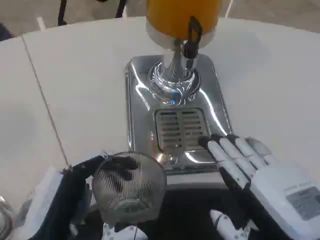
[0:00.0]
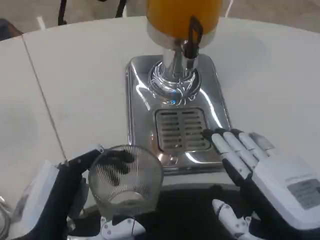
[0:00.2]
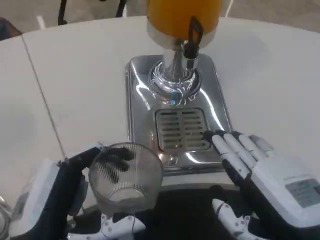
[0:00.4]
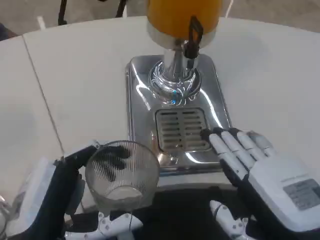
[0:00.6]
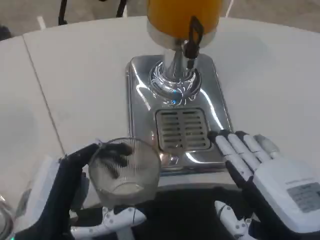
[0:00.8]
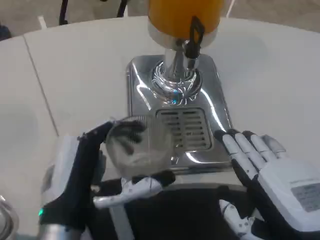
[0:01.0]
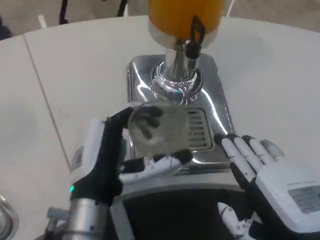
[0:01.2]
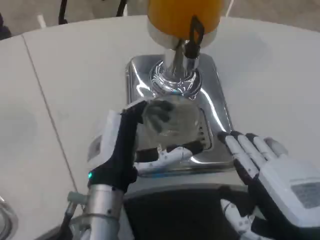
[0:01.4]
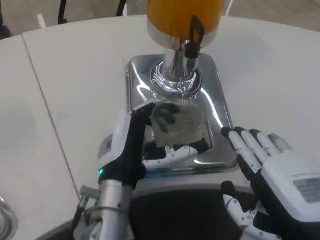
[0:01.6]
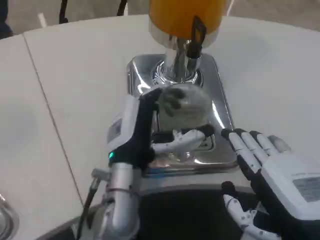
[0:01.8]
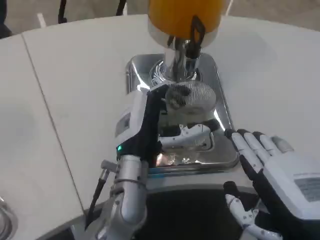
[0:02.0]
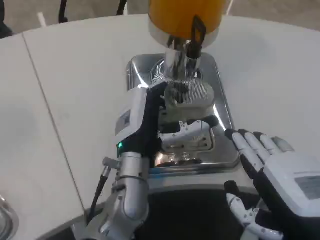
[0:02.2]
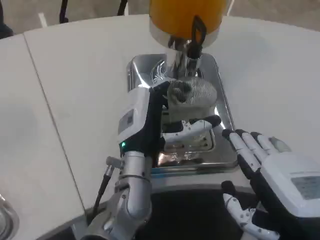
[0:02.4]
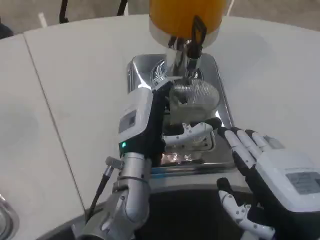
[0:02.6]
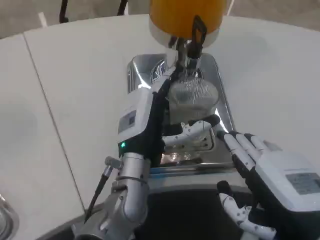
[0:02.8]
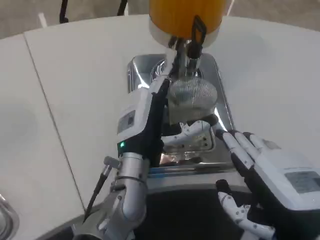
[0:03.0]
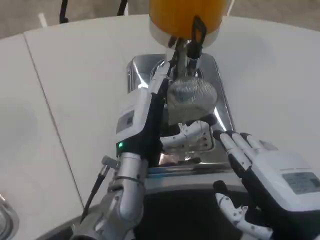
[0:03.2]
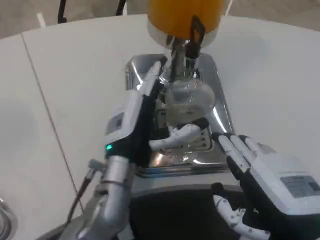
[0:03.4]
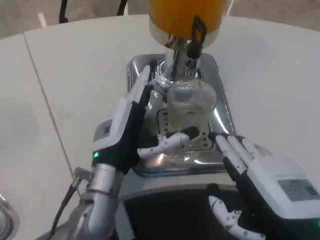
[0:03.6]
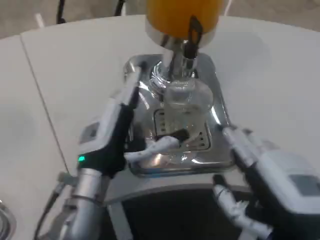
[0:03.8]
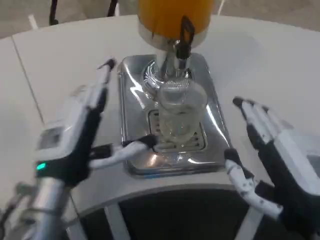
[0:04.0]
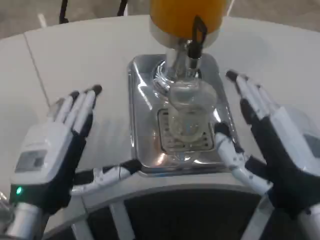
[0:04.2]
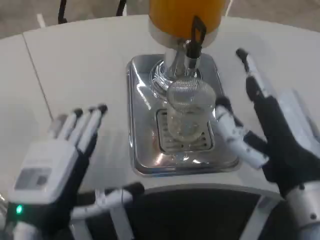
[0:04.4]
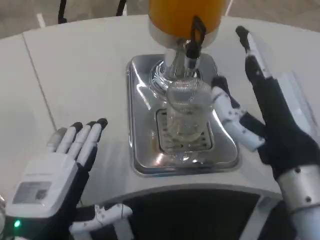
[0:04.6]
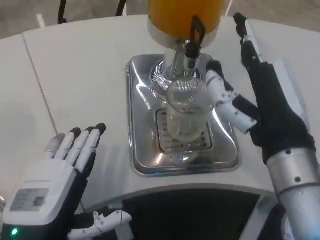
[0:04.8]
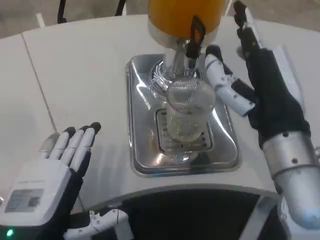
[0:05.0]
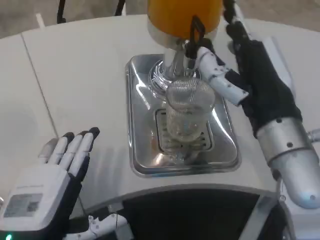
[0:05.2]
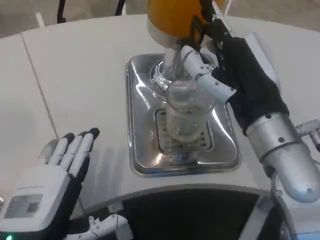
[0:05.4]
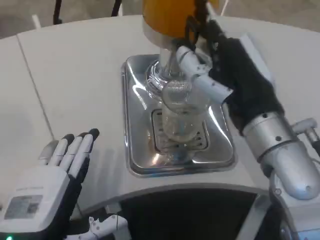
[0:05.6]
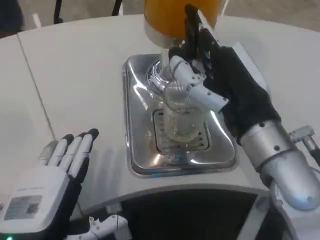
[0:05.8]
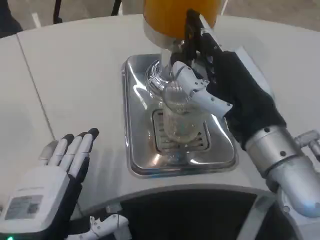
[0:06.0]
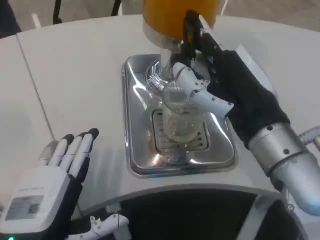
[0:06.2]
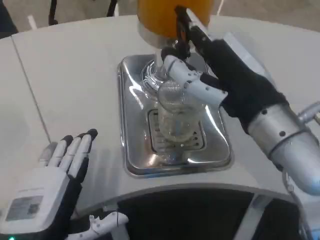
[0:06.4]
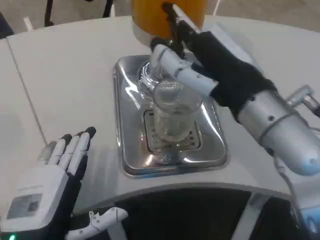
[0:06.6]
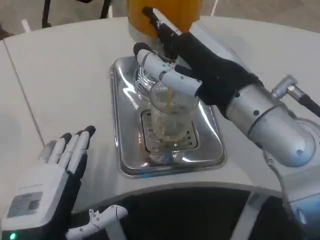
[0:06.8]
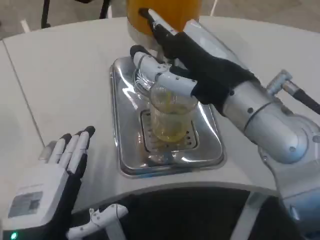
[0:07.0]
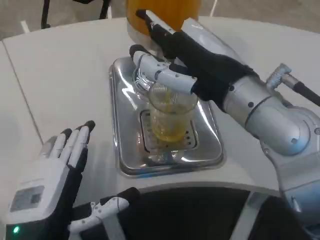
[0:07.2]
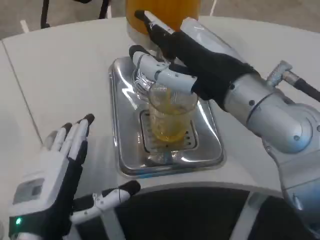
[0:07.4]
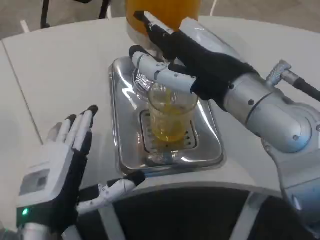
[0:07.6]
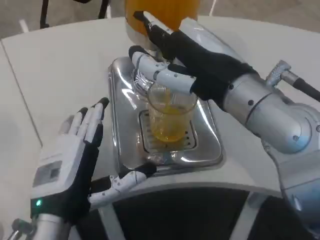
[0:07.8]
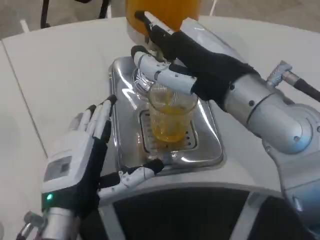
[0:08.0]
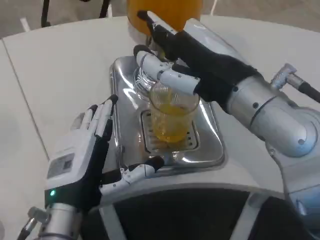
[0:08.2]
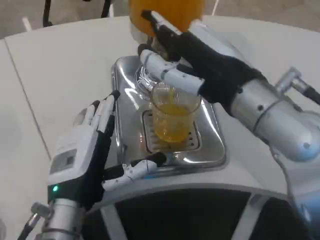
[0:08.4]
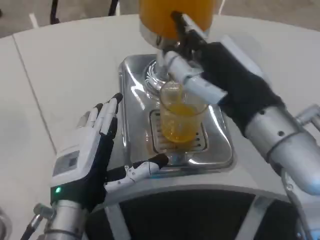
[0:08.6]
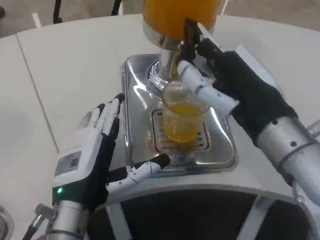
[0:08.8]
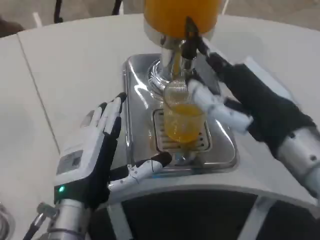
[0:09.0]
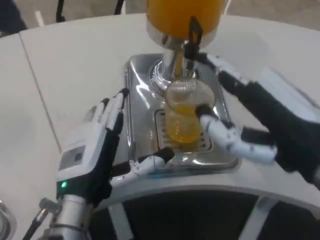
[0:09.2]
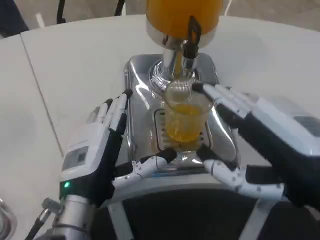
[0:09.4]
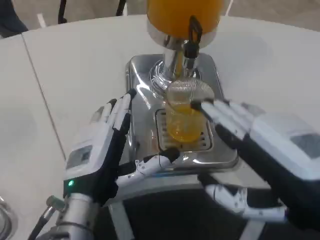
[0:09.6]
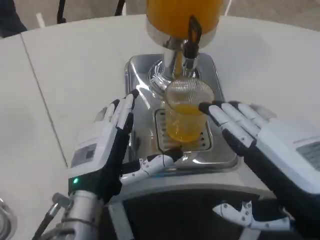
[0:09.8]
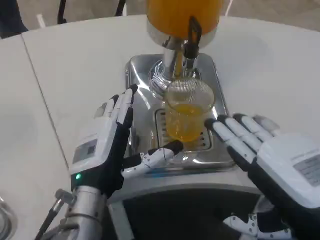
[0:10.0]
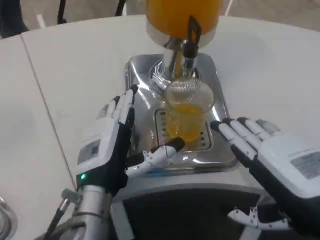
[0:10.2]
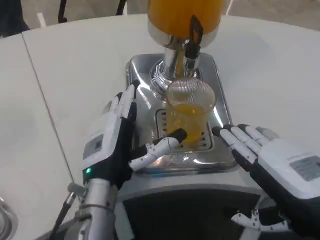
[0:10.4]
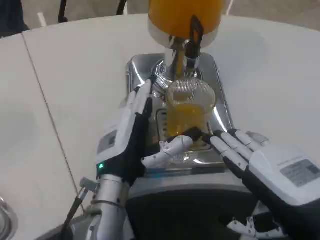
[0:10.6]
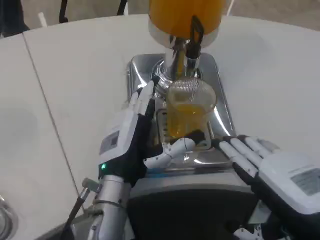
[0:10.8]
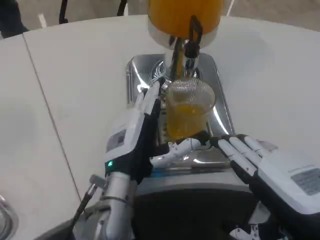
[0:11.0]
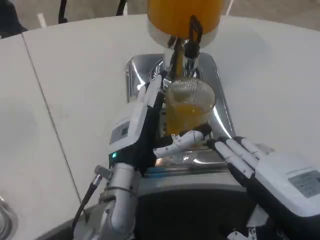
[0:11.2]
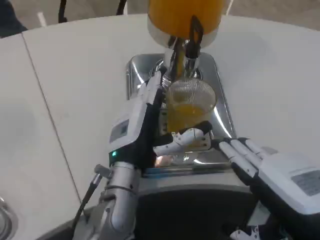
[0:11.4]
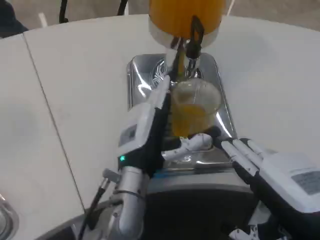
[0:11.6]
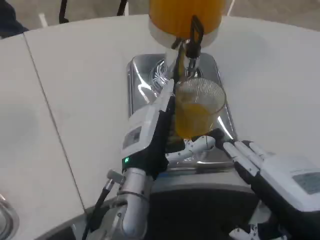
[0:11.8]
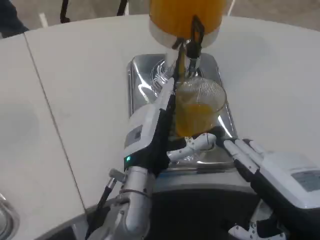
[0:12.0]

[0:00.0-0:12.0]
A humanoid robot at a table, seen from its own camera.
Task of the whole recording: Grasp the cup under the faucet to collect the drink, then remove the cup.
0:00.0 to 0:01.6: The left hand travels forward and to the right by some 15 cm.
0:01.6 to 0:03.0: The hands make only small movements.
0:03.0 to 0:04.4: The right hand ends up roughly 5 cm from where it was. The left hand shifts about 20 cm backward and to the left.
0:04.4 to 0:06.0: The right hand ends up roughly 5 cm from where it was.
0:06.0 to 0:07.6: The right hand shifts about 5 cm upward.
0:07.6 to 0:09.0: The right hand goes some 5 cm to the right.
0:09.0 to 0:10.4: The left hand changes place by some 5 cm; the right hand goes some 5 cm downward.
0:10.4 to 0:12.0: The left hand goes about 5 cm to the right.

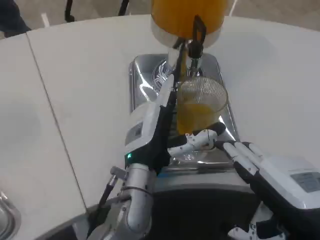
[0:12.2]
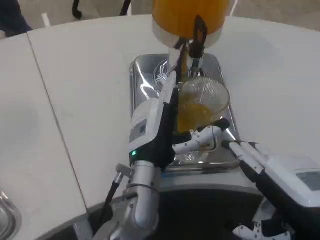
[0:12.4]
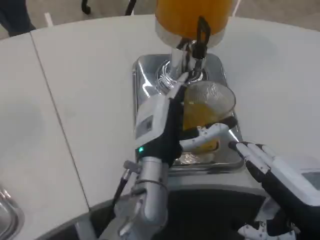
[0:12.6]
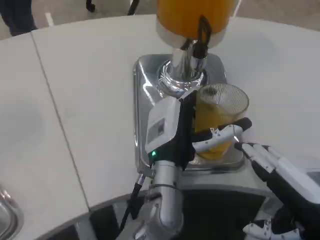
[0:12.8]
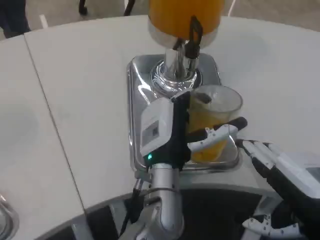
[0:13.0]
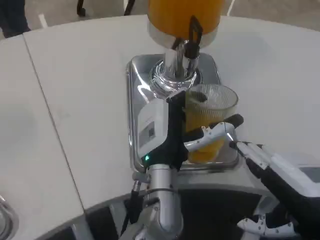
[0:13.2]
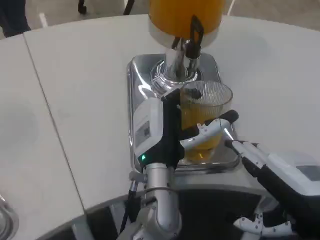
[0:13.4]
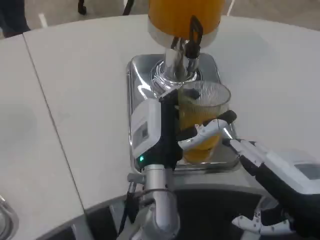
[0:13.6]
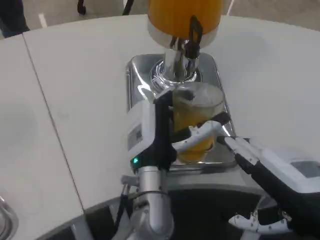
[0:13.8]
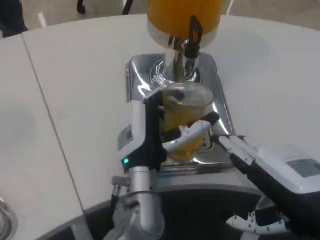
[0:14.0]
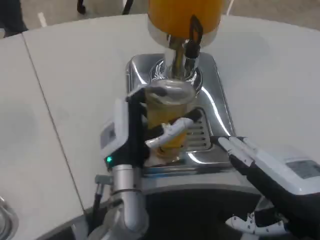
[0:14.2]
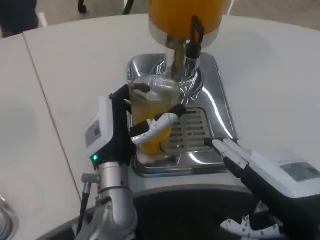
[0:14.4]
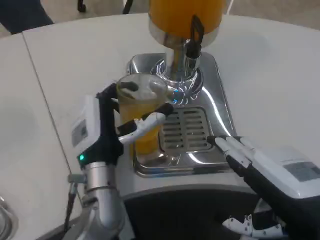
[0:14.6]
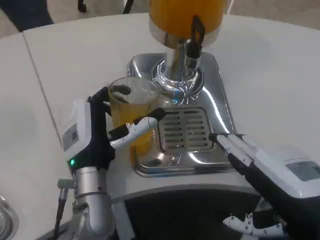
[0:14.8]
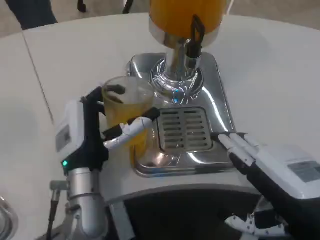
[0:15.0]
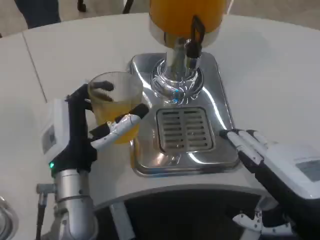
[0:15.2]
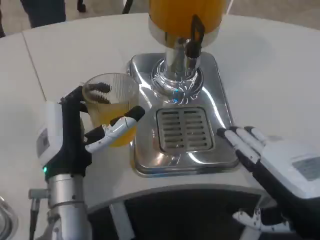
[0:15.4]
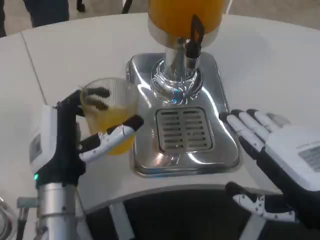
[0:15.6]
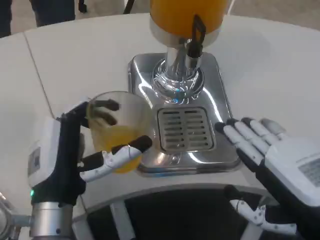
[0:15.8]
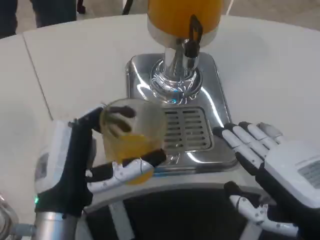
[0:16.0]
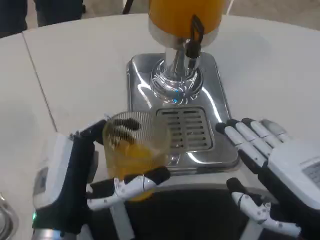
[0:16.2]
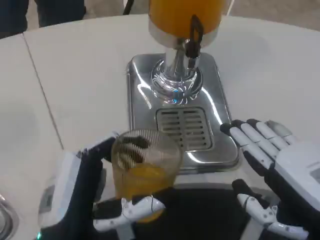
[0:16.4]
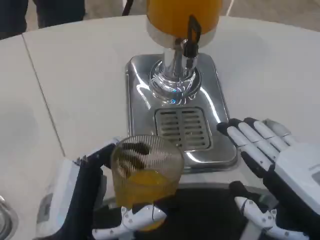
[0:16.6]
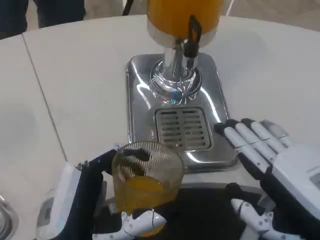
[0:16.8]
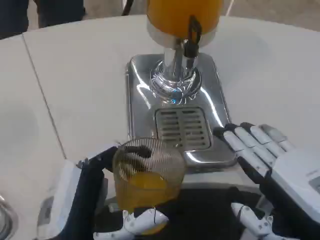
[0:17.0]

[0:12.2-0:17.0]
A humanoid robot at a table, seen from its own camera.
Task of the whole recording: Grasp the cup under the faucet to collect the drink, then remove the cup.
0:12.2 to 0:13.8: The hands stay close to where they were, moving slightly.
0:13.8 to 0:15.4: The left hand shifts roughly 10 cm to the left.
0:15.4 to 0:17.0: The left hand moves backward, about 15 cm.

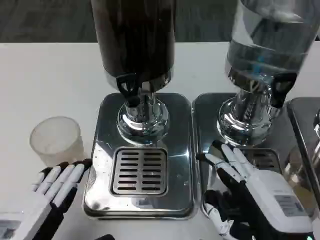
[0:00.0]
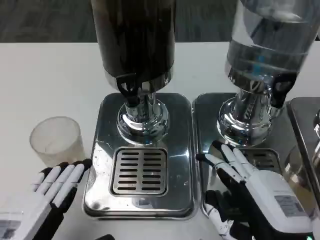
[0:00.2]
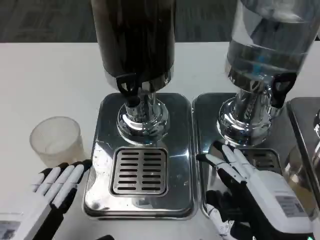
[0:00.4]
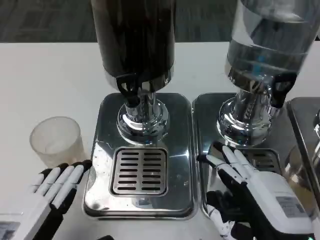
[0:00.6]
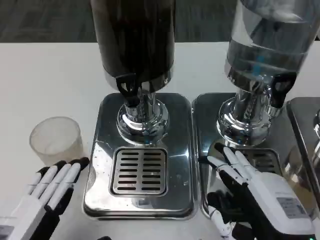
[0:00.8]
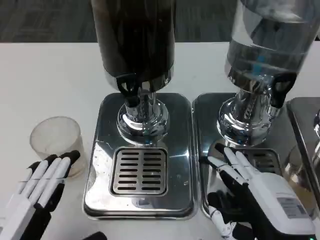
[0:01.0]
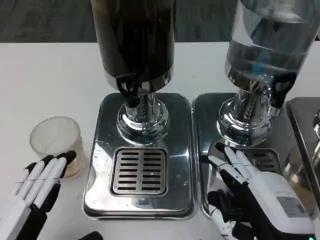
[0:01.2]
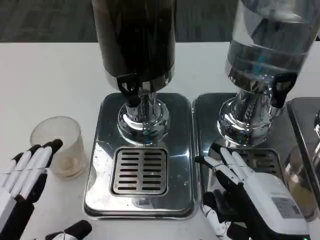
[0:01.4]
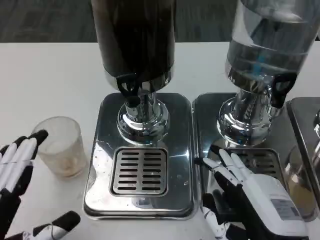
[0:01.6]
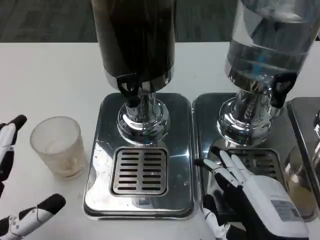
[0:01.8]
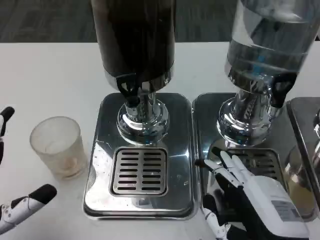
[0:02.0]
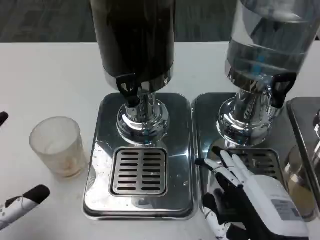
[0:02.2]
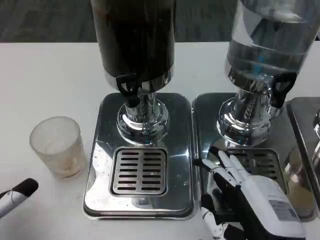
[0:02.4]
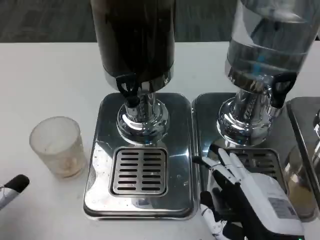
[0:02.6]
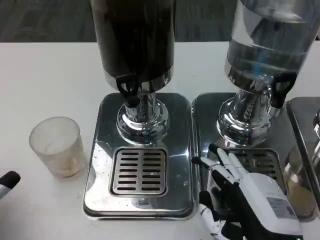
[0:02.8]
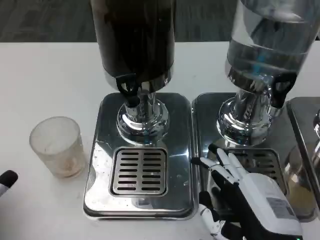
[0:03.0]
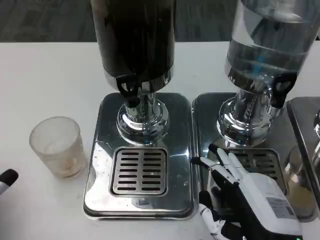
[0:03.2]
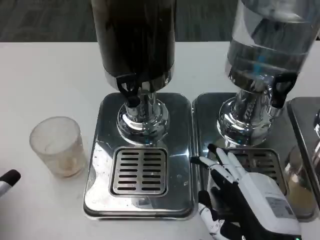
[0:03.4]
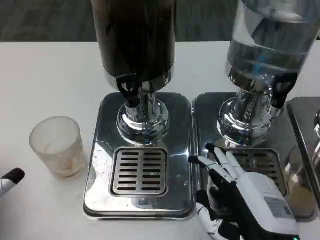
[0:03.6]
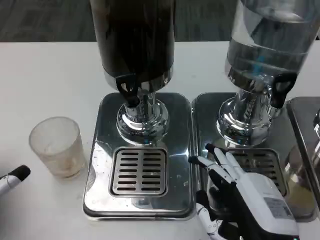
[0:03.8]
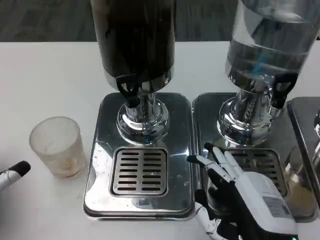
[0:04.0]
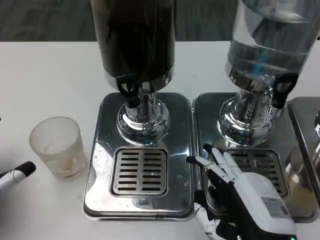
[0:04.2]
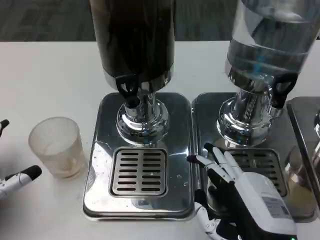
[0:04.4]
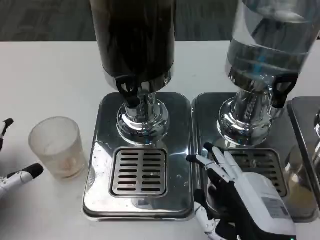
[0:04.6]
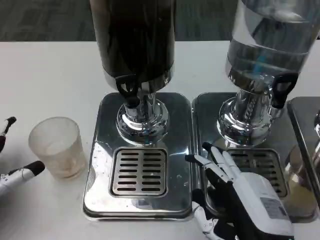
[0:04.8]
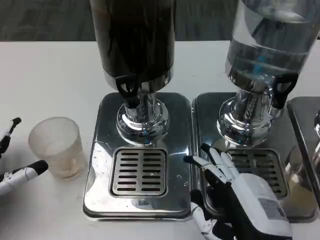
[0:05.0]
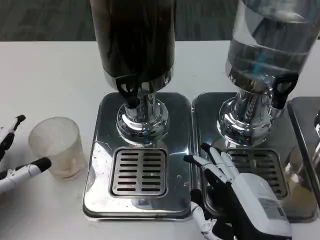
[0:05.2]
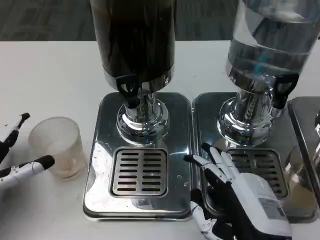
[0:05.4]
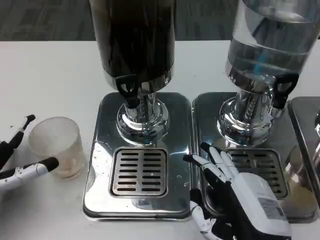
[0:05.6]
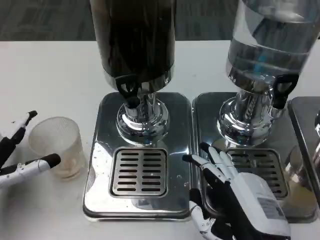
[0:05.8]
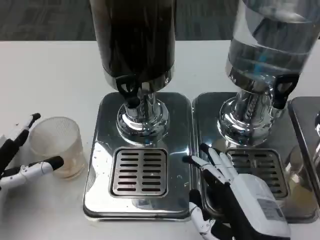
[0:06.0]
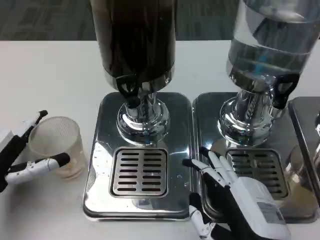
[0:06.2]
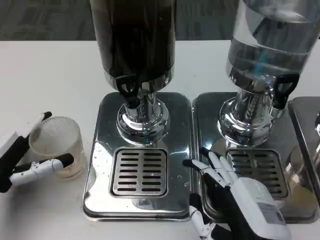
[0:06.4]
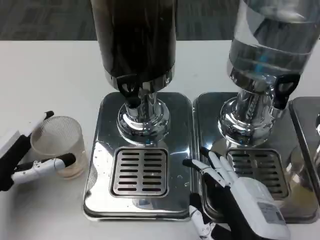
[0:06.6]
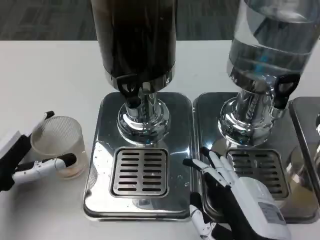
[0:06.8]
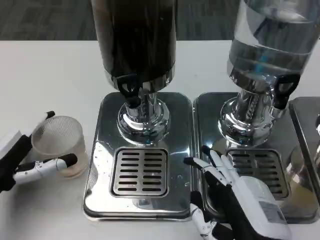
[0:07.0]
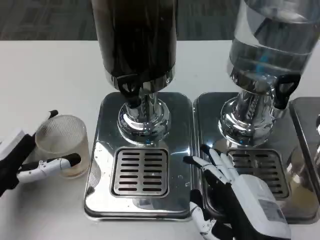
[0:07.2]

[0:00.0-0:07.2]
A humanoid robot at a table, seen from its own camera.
Task of the whole recording: Grasp the cup under the faucet to collect the drink, then remove the cup.
0:00.0 to 0:01.4: The hands make only small movements.
0:01.4 to 0:02.8: The left hand heads to the left, covering roughly 5 cm.
0:02.8 to 0:04.4: The left hand goes approximately 5 cm forward.
0:04.4 to 0:07.2: There are only small adjustments of the hands.
